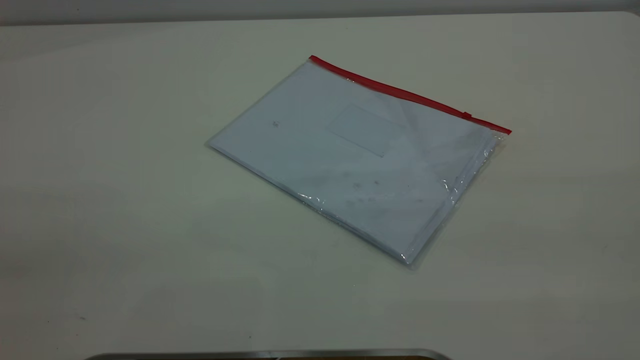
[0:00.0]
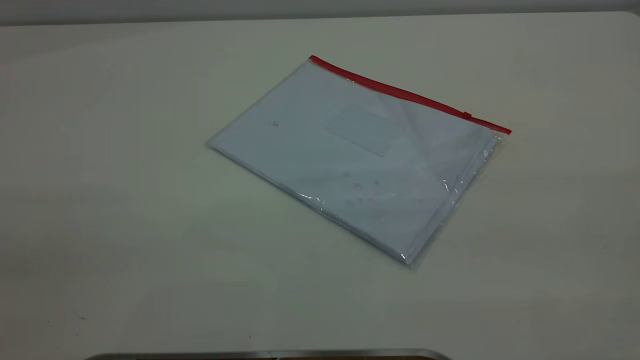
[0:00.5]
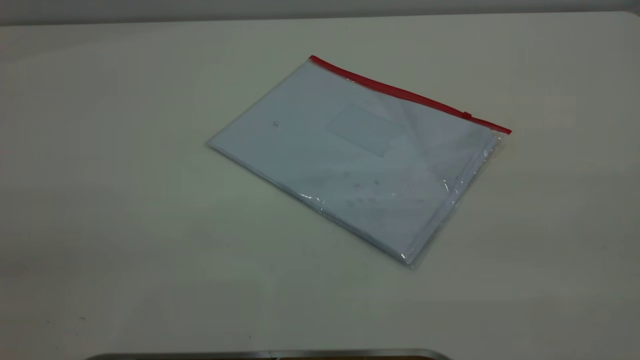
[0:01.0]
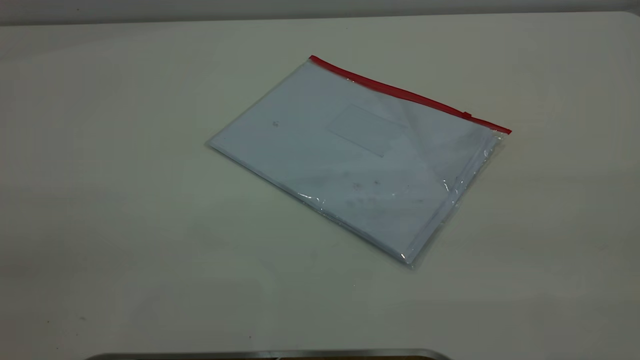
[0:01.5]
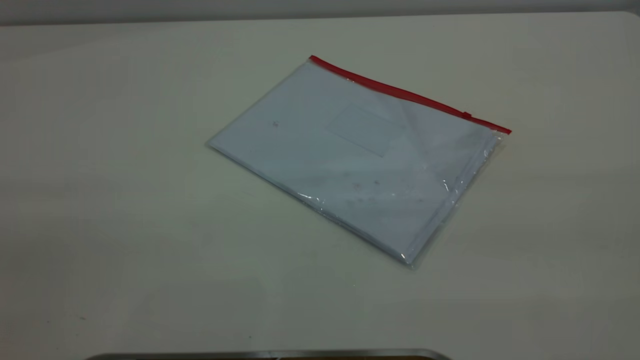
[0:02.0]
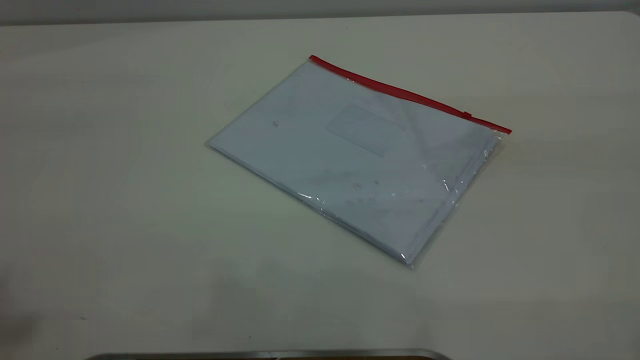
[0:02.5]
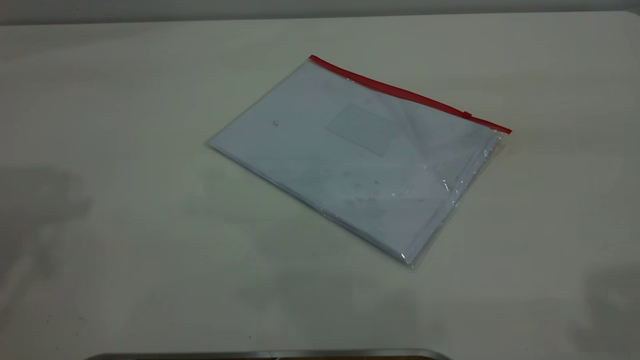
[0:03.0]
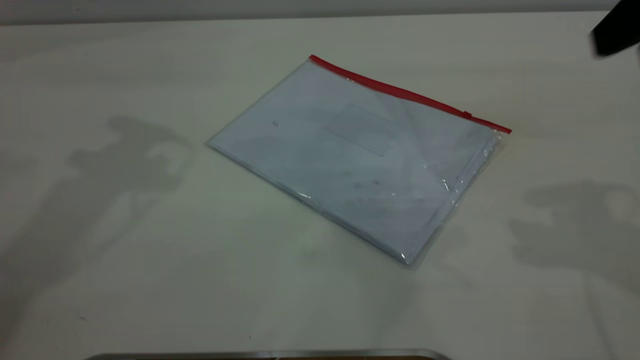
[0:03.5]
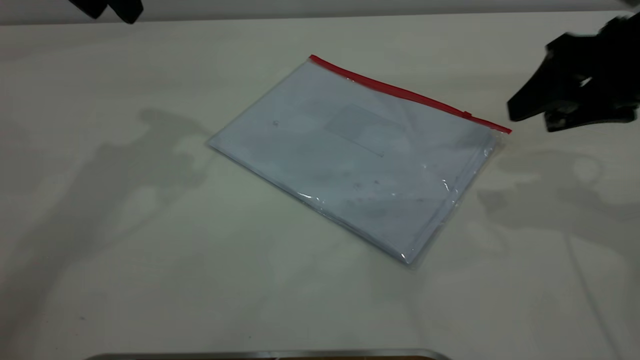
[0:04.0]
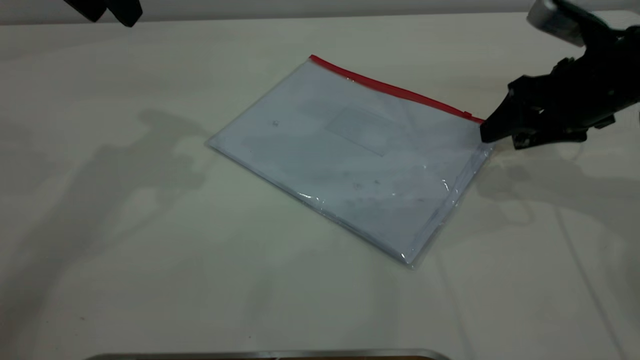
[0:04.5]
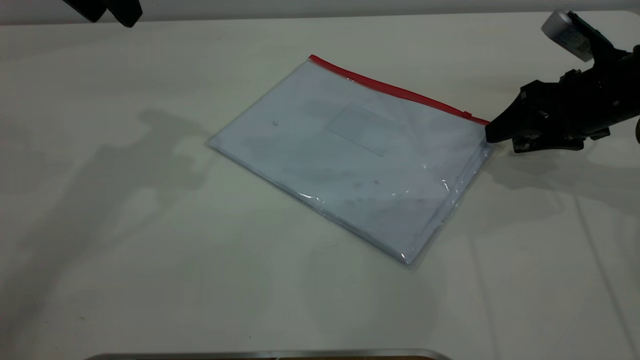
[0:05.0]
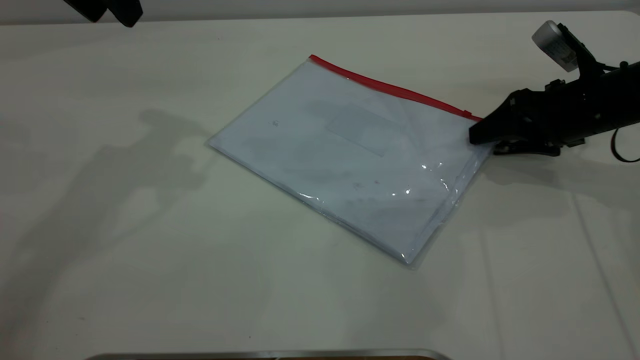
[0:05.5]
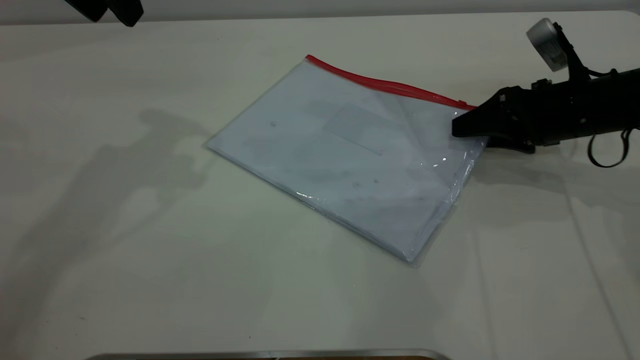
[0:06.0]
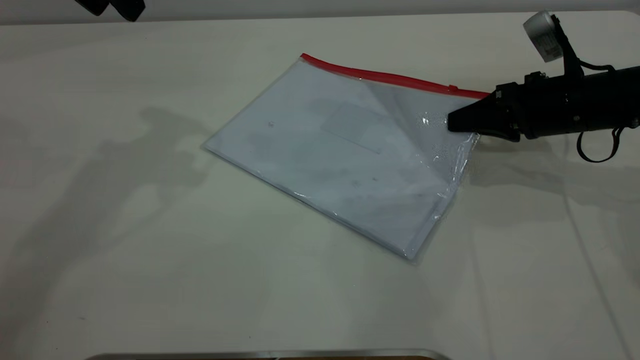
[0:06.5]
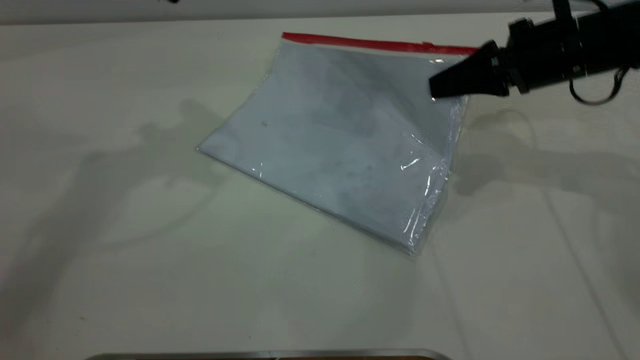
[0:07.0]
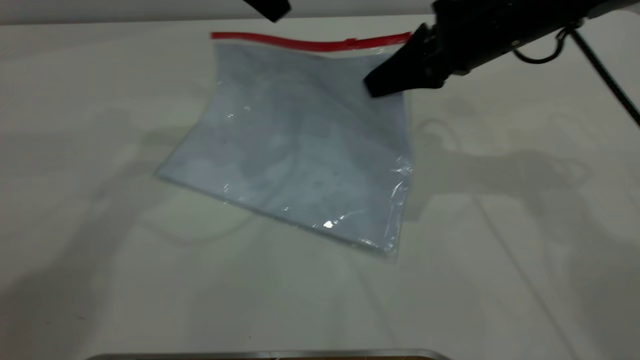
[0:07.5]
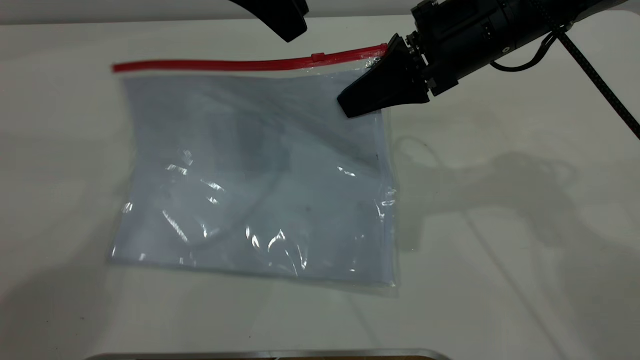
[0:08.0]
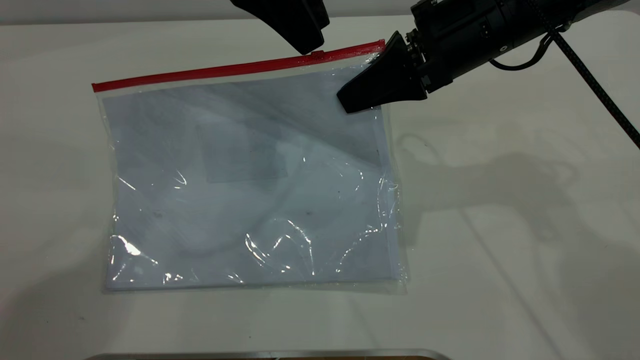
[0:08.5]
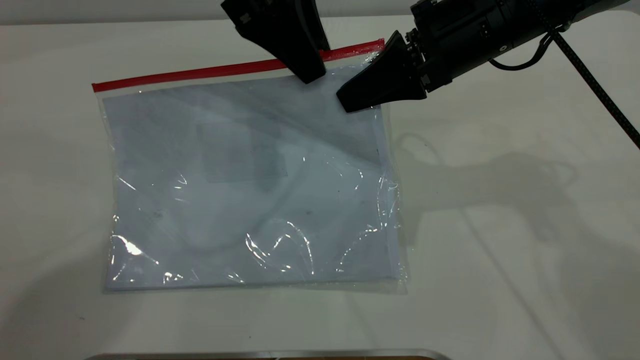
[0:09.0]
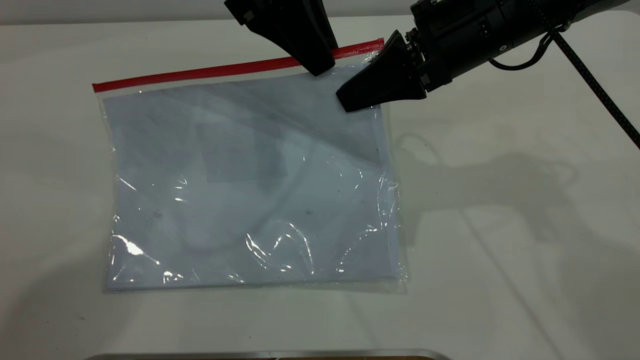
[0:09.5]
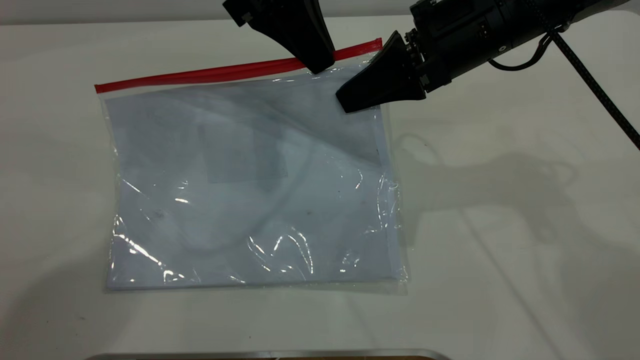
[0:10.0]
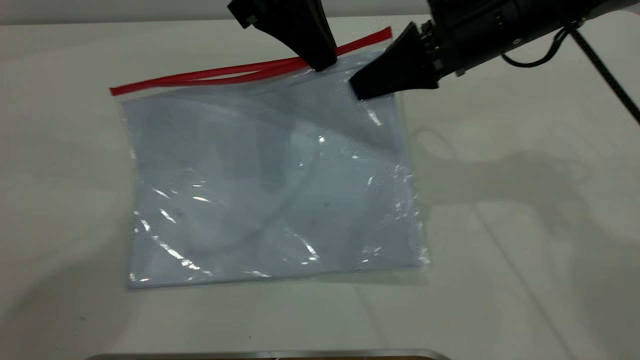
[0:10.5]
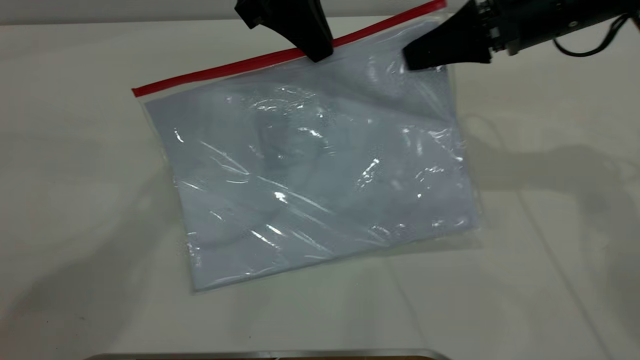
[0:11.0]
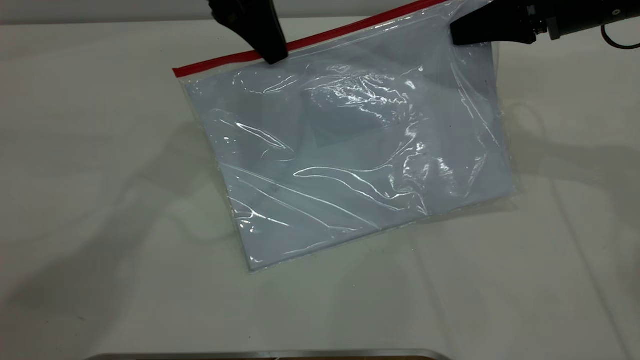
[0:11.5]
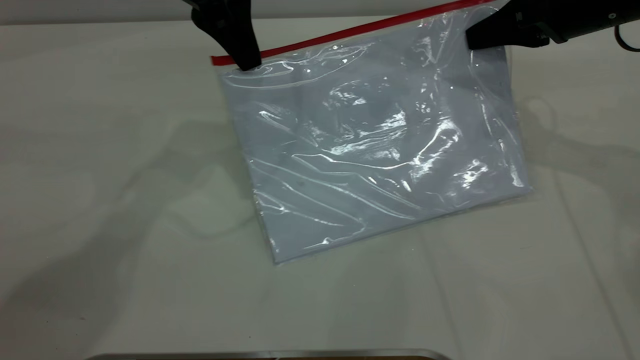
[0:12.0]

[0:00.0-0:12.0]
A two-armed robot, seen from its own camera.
Step, 0.0 to 6.5 s: Pick up the transparent plastic bag with the right gripper.
2.0 to 4.0 s: The right gripper goes some 35 cm forward and downward.
4.0 to 6.0 s: The right gripper is displaced downward and forward by about 15 cm.
6.0 to 8.0 s: The right gripper shifts approximately 20 cm to the left and upward, and closes, while the left gripper goes approximately 10 cm to the right.
8.0 to 10.0 s: The left gripper closes its fingers.
10.0 to 12.0 s: The right gripper shifts approximately 15 cm to the right. Meanwhile the left gripper moves roughly 5 cm.

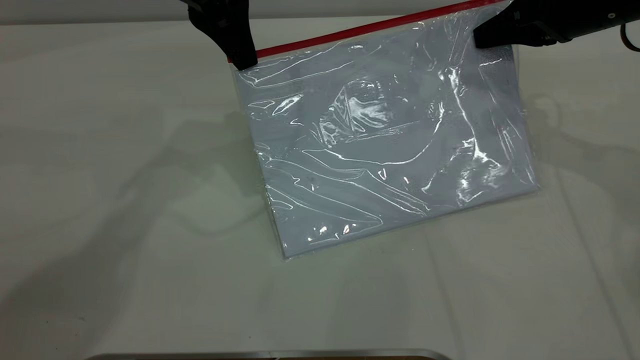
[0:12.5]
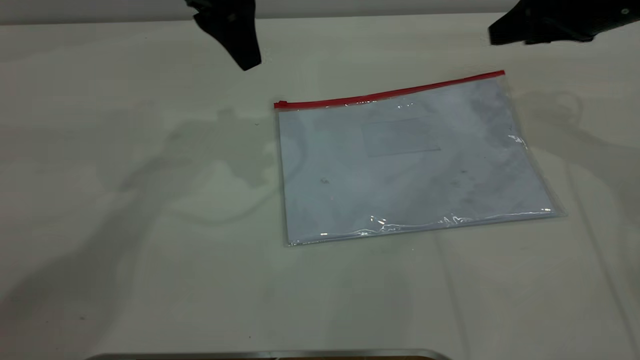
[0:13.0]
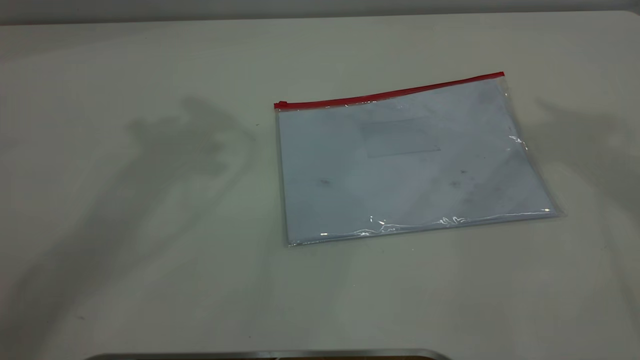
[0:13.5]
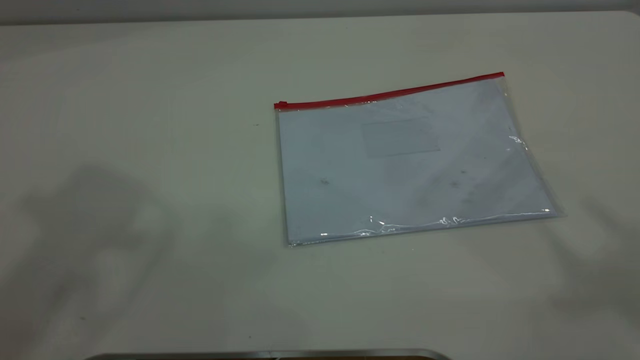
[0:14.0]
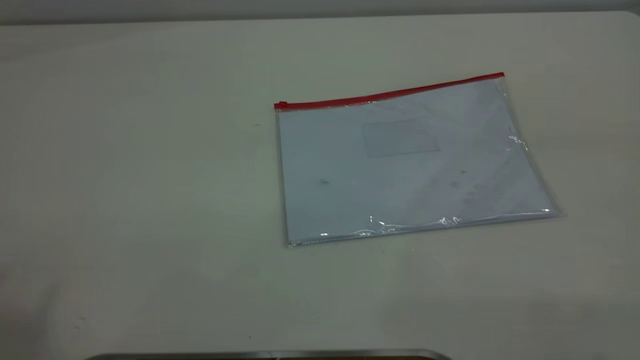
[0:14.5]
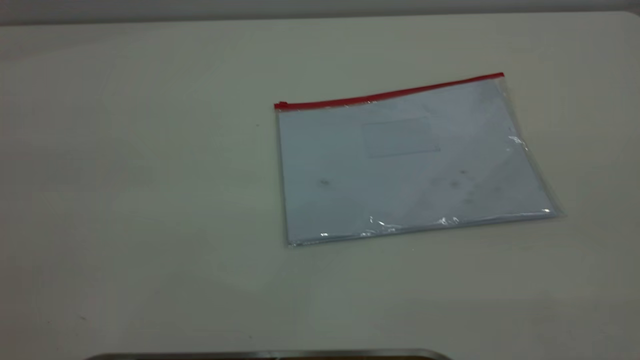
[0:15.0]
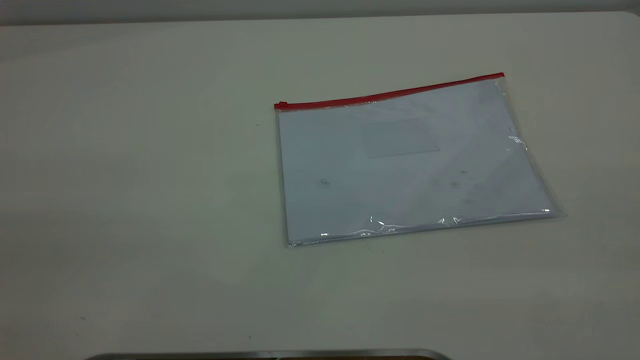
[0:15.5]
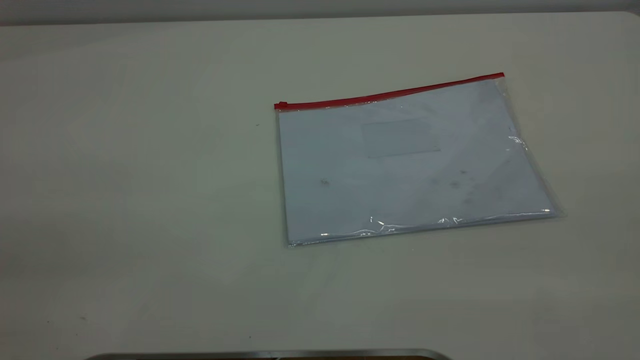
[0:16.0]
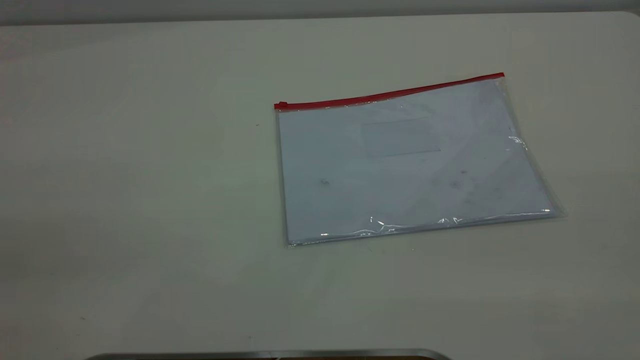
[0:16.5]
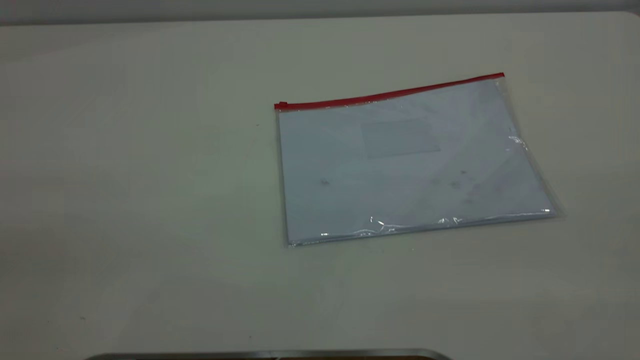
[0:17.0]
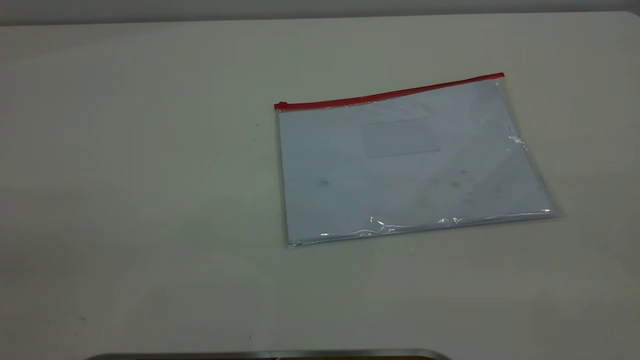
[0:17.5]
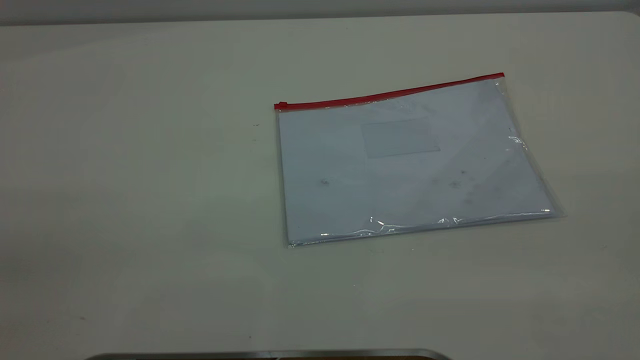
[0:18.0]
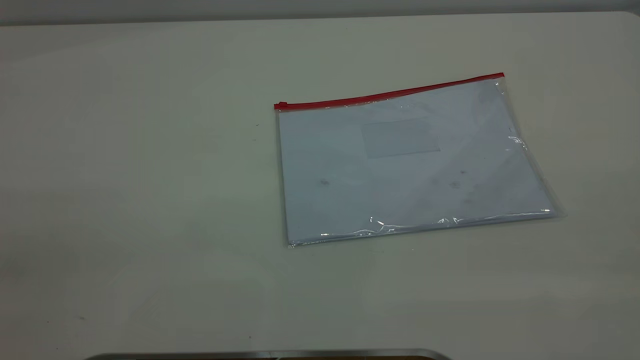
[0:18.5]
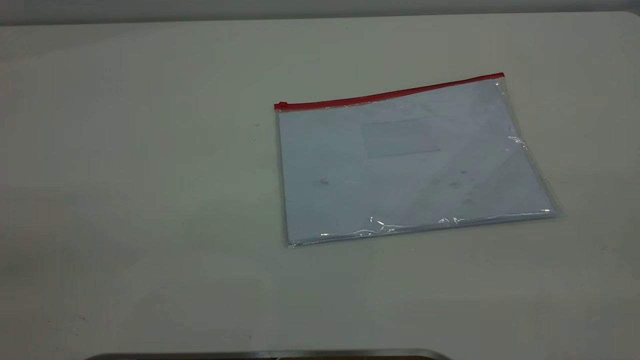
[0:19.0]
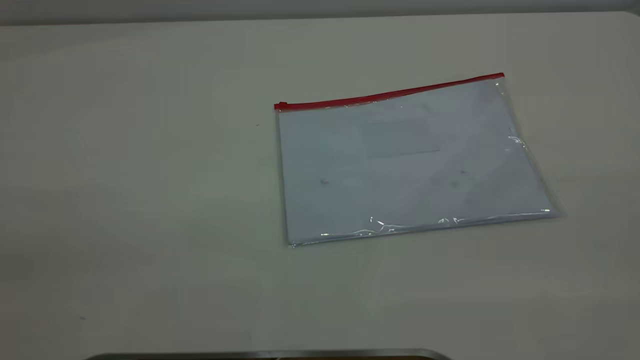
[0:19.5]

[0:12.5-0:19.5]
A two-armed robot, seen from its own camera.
12.5 to 14.5 s: The right gripper travels backward and upward by approximately 50 cm, and opens up. Meanwhile the left gripper travels upward, backward and to the left by about 50 cm, and opens up.
17.5 to 19.5 s: Both grippers stay put.

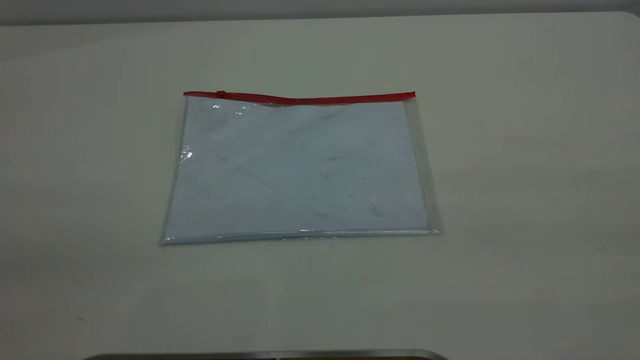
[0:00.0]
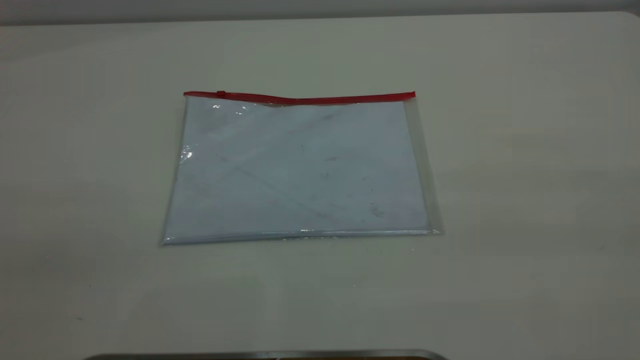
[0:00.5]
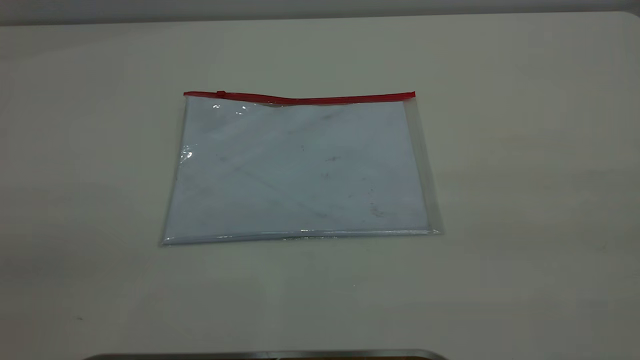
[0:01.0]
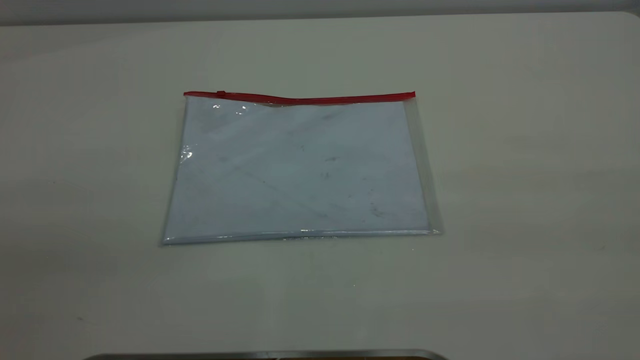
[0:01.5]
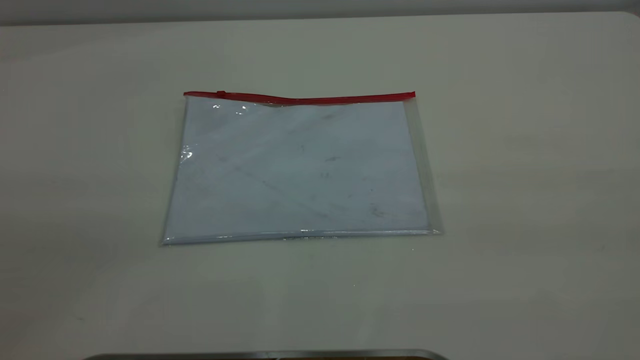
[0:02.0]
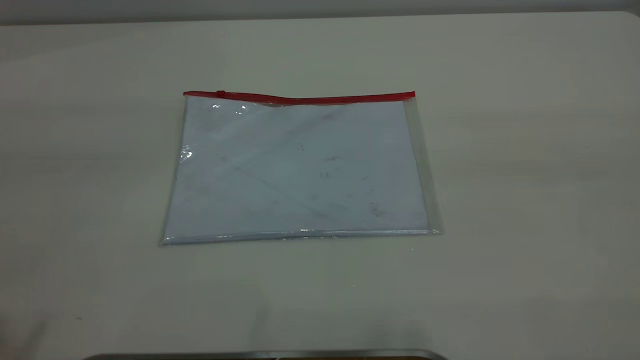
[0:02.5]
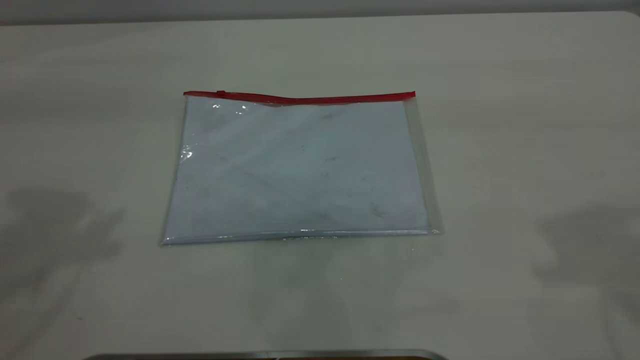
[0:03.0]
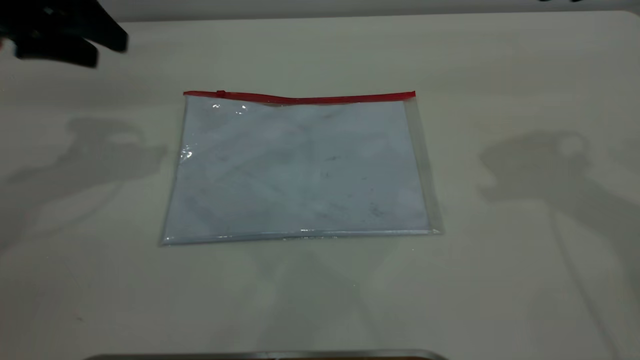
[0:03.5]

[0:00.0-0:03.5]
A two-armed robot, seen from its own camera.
2.0 to 3.5 s: The left gripper is displaced forward and downward by some 40 cm.
